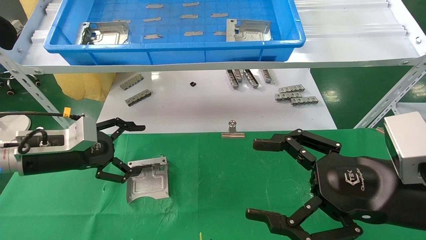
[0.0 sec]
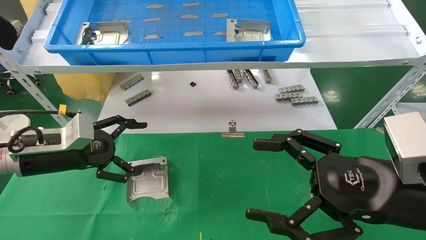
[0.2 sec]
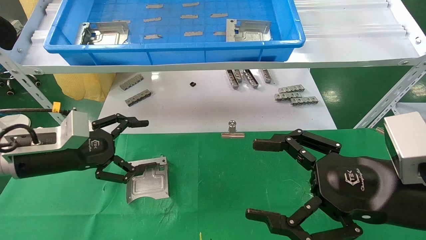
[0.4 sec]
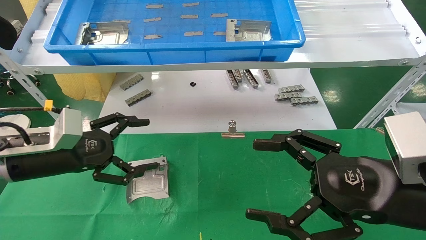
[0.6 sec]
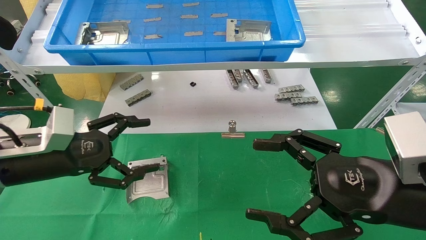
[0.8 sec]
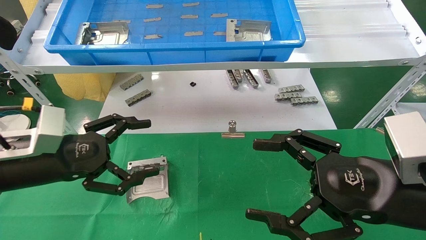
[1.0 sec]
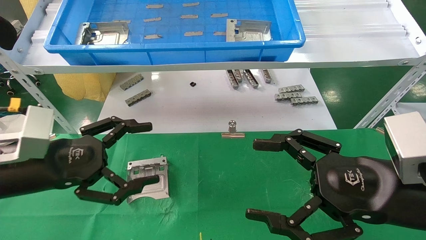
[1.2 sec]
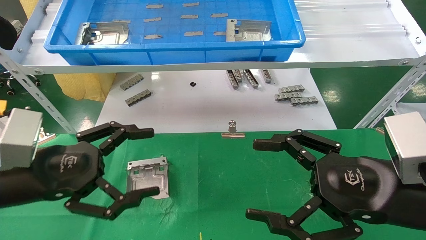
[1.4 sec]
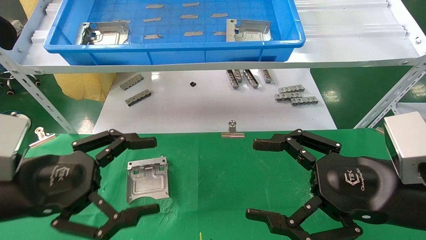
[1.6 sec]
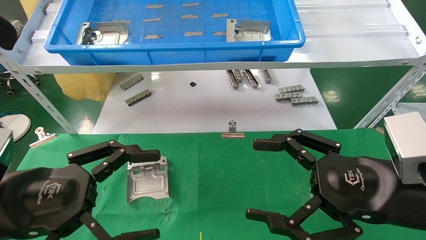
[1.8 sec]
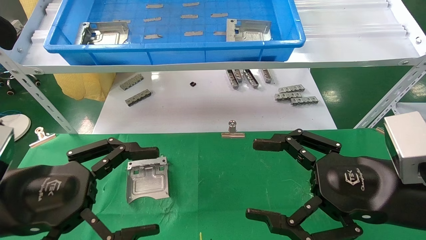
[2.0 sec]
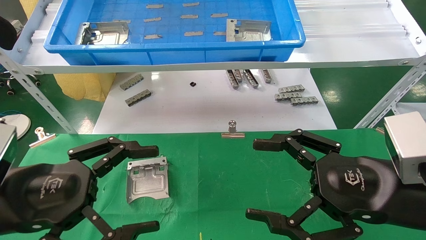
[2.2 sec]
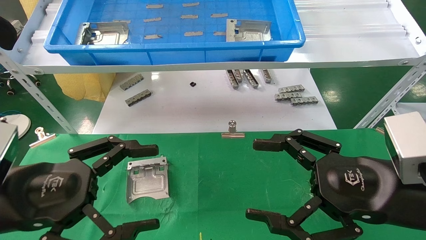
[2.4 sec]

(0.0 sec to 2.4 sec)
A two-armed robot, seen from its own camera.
Task of the whole recording: use the mechanical arm to pick up the parts and place them on the table.
0.0 sec - 1.2 sec: The left gripper moves backward, about 10 cm.
1.2 sec - 2.4 sec: The left gripper heads backward, covering about 5 cm.
